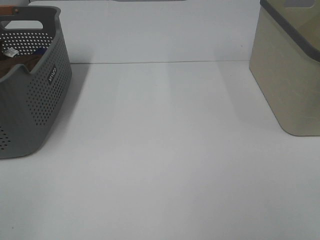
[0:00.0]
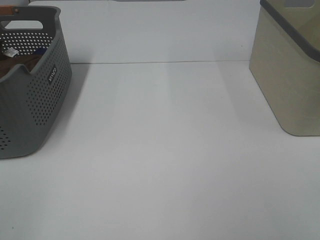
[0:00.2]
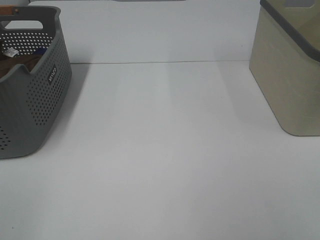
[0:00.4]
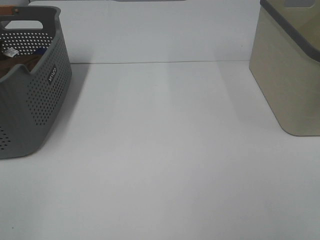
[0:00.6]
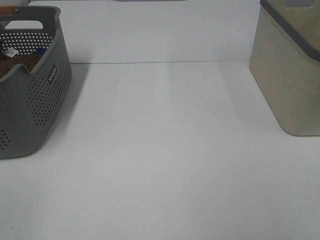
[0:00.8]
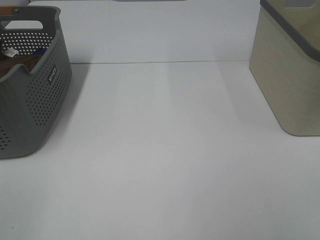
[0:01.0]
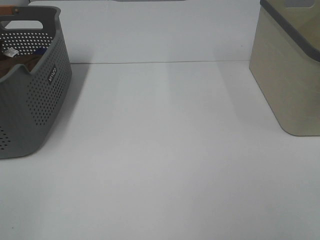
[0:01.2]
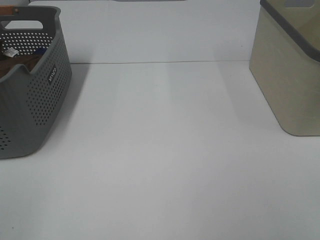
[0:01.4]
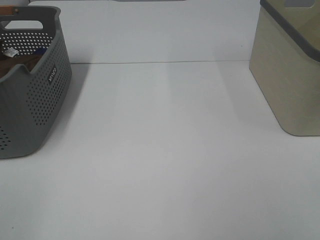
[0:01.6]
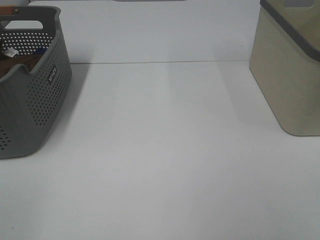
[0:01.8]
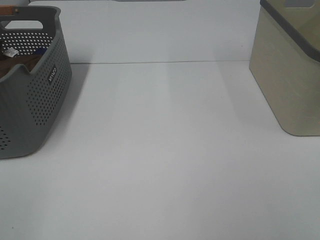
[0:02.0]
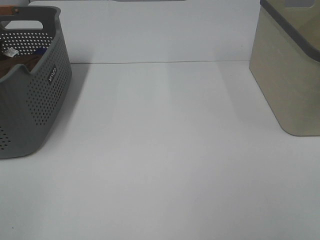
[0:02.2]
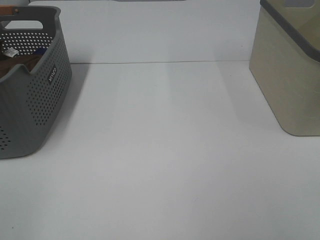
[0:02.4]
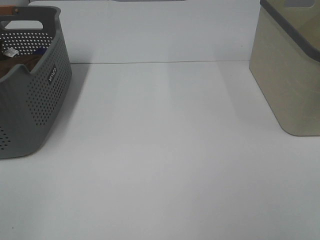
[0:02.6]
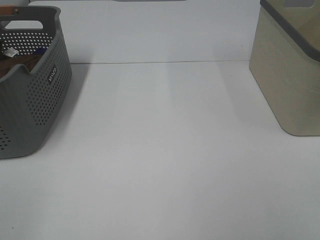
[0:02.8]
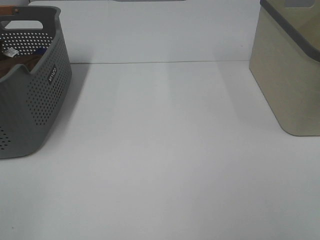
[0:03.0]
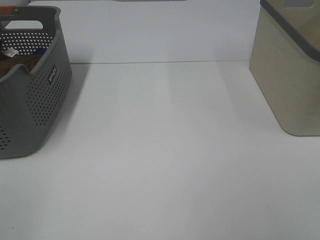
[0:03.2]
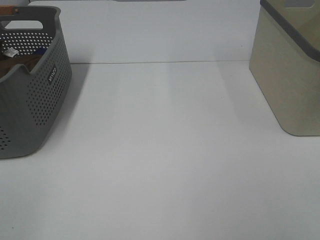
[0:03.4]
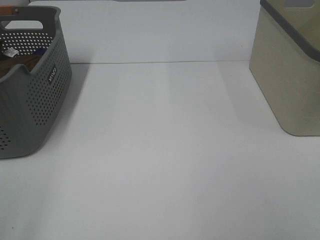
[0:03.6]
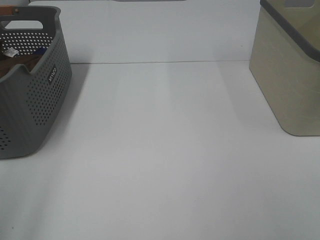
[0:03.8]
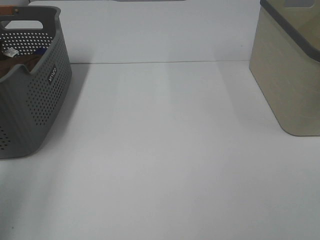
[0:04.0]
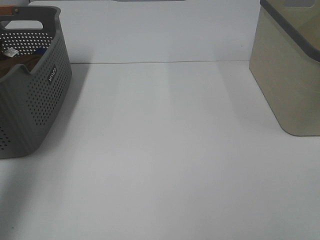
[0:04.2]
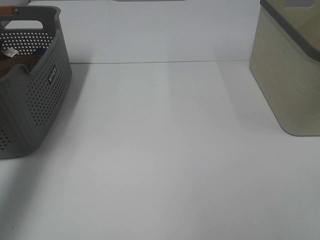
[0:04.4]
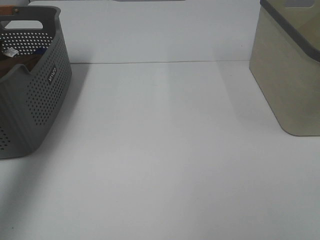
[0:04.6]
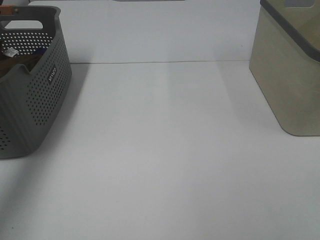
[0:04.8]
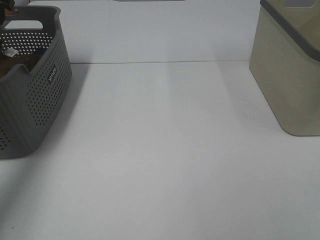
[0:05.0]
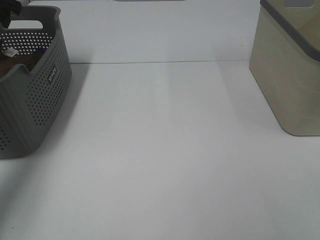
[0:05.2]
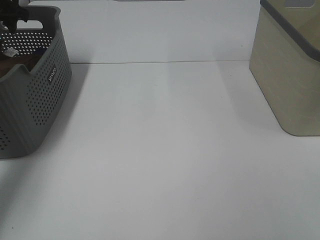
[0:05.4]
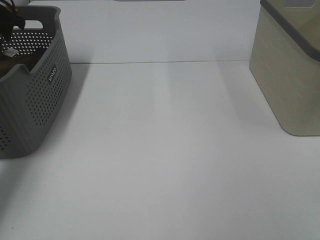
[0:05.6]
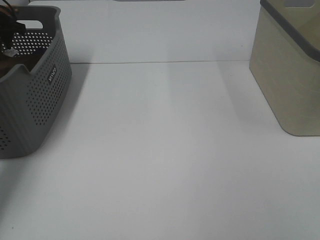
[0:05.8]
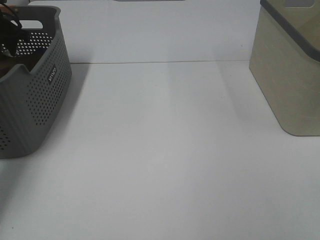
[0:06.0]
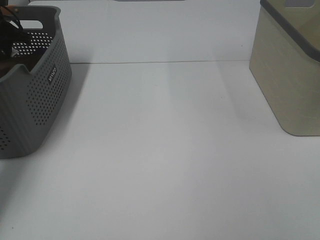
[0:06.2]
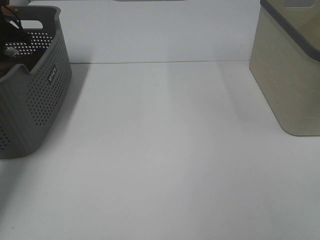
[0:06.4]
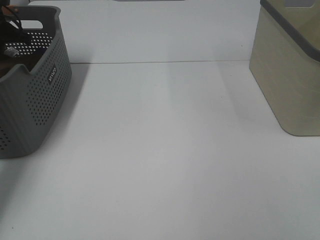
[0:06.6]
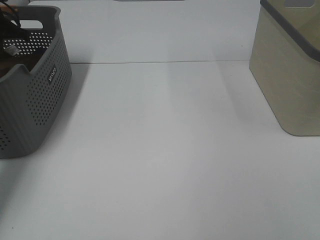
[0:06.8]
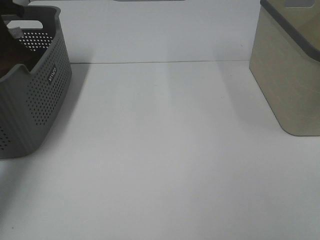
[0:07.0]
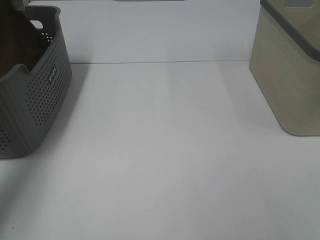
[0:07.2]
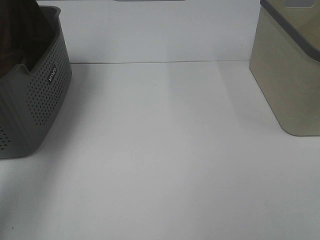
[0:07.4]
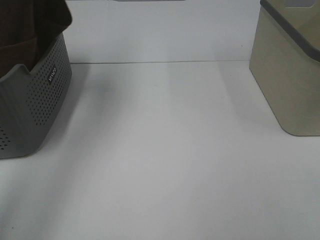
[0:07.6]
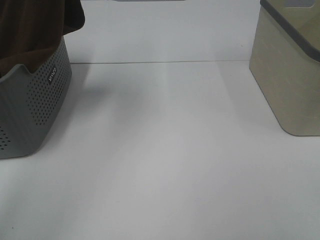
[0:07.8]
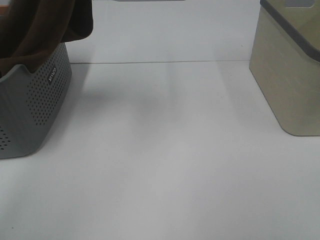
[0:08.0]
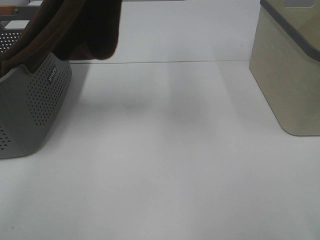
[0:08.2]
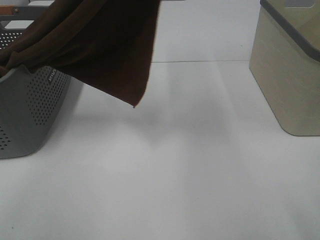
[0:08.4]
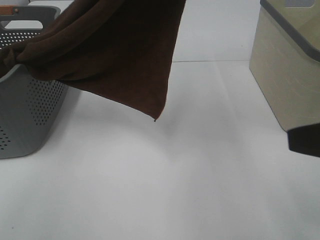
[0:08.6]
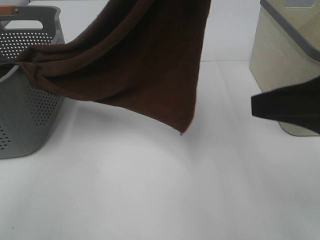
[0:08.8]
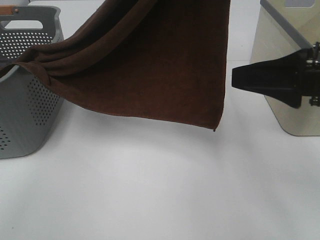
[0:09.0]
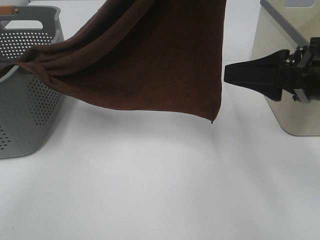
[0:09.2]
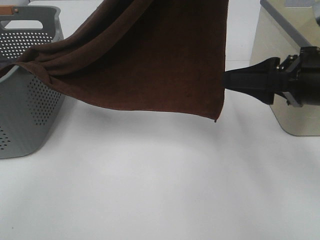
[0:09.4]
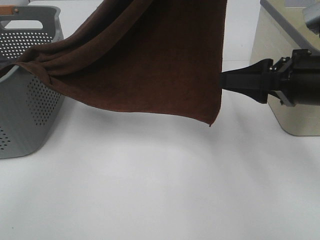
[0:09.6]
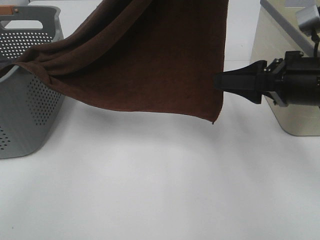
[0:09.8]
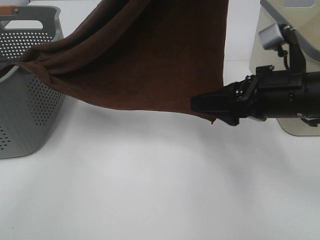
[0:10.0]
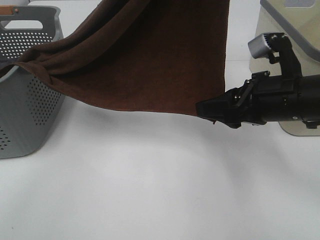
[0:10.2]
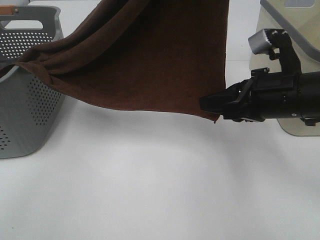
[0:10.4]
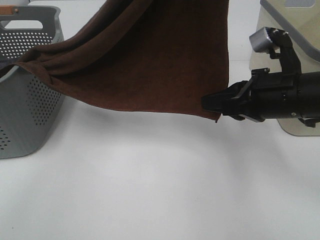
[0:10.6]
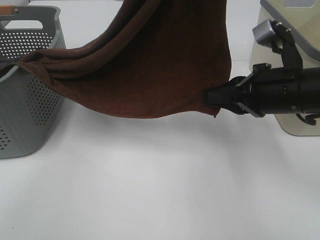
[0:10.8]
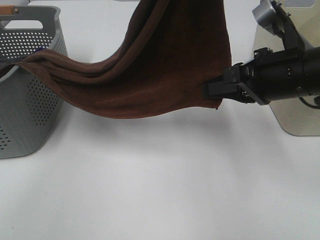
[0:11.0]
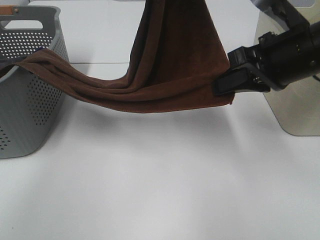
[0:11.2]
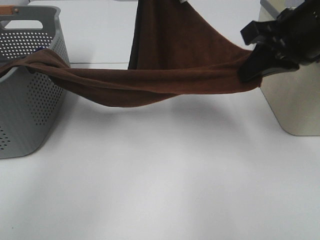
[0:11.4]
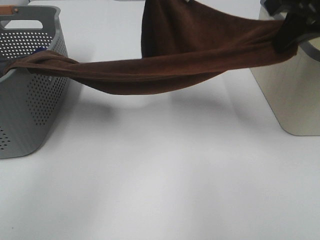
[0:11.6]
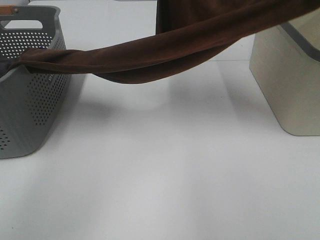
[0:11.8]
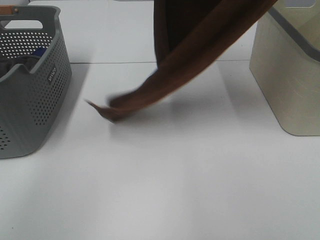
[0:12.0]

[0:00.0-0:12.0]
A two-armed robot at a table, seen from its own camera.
Task of the whole recording: Remove the towel and place it.
Step, 7.2 to 10.0 s: Right hand: grab a corner of the brown towel and straighten it.
0.0 to 3.0 s: Neither gripper changes place.
3.0 to 4.4 s: The left gripper goes roughly 30 cm forward.
4.4 to 6.0 s: The left gripper goes approximately 30 cm forward and downward.
6.0 to 7.6 s: The left gripper heads upward, to the right and backward, covering roughly 30 cm, and closes its fingers.
7.6 to 9.0 s: The right gripper travels forward by roughly 20 cm. Meanwhile the left gripper is displaced to the right and backward by about 25 cm.
9.0 to 10.4 s: The right gripper moves downward and forward, some 10 cm, and closes.
10.4 to 12.0 s: The right gripper shifts some 30 cm upward. Meanwhile the left gripper moves forward and to the left, approximately 10 cm, and travels downward and back again, some 10 cm each way.

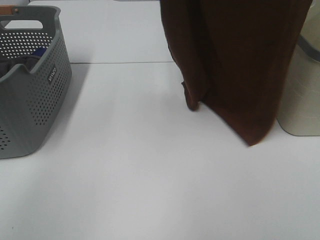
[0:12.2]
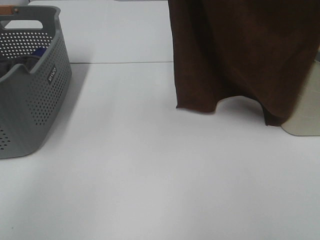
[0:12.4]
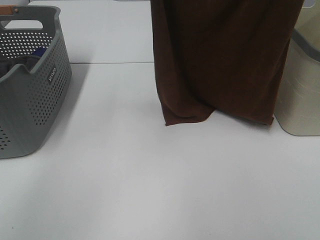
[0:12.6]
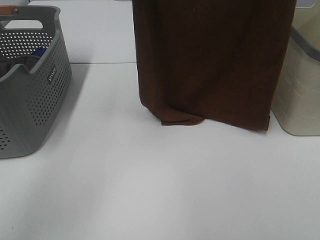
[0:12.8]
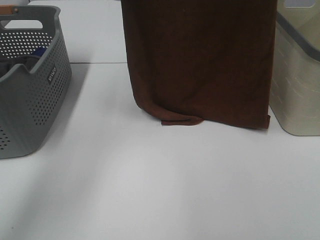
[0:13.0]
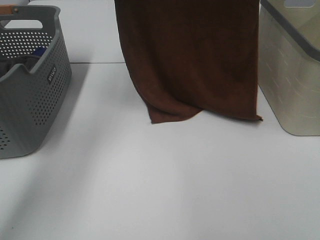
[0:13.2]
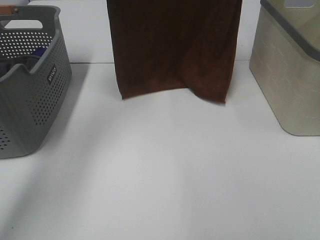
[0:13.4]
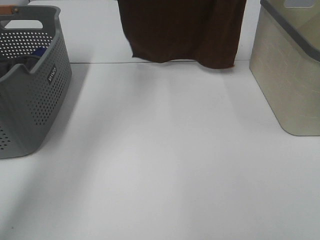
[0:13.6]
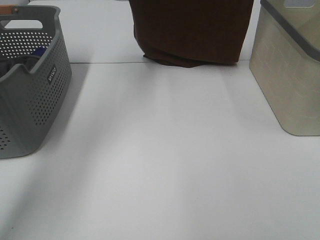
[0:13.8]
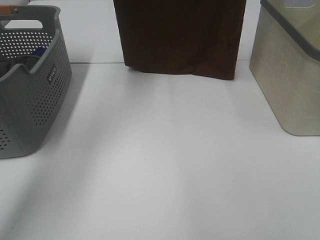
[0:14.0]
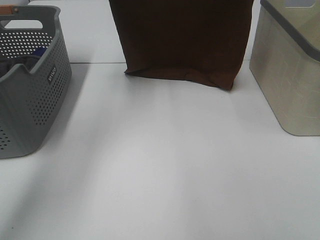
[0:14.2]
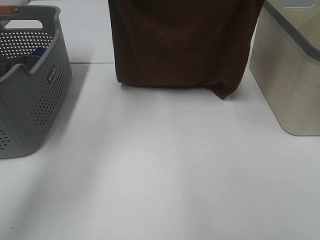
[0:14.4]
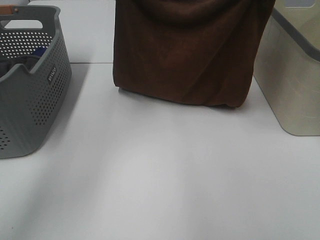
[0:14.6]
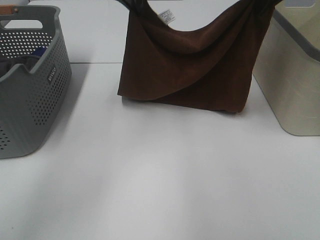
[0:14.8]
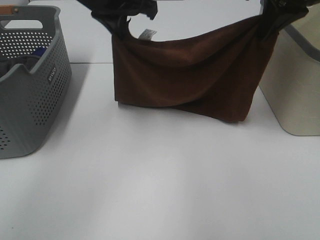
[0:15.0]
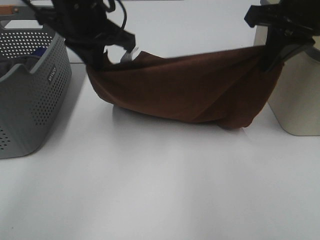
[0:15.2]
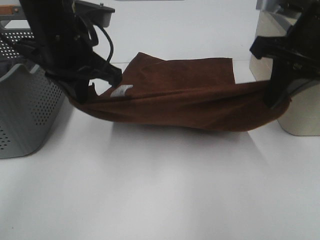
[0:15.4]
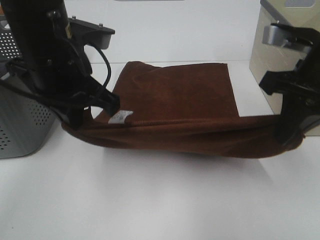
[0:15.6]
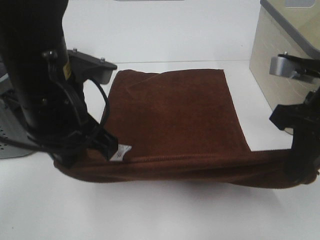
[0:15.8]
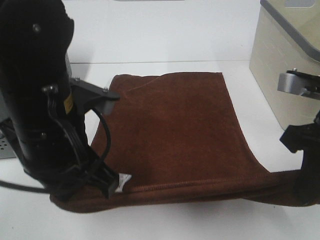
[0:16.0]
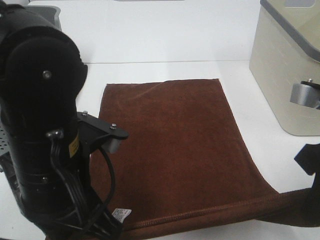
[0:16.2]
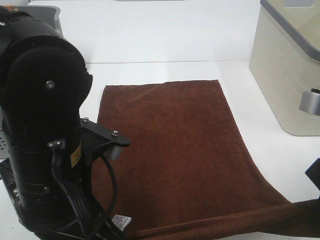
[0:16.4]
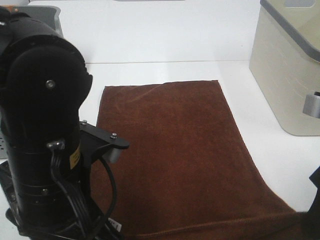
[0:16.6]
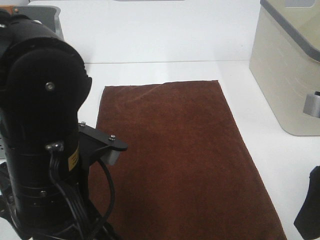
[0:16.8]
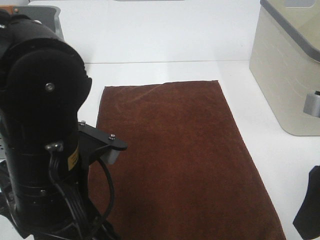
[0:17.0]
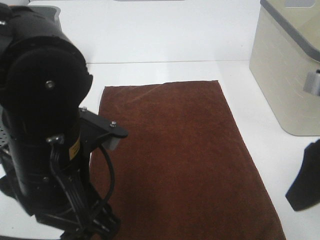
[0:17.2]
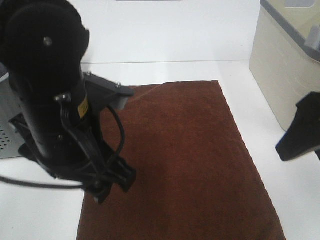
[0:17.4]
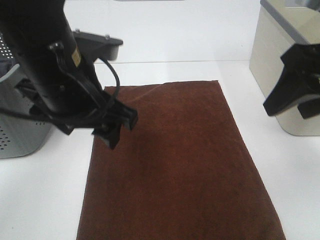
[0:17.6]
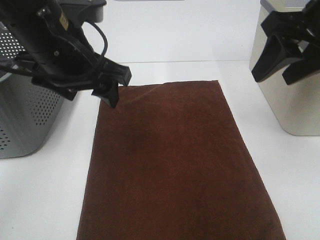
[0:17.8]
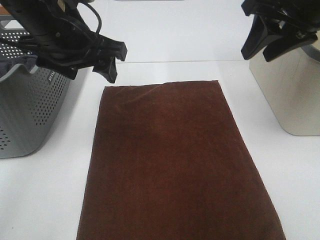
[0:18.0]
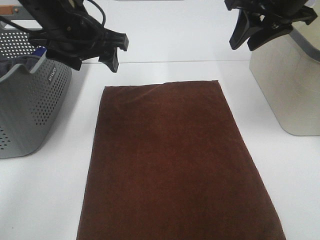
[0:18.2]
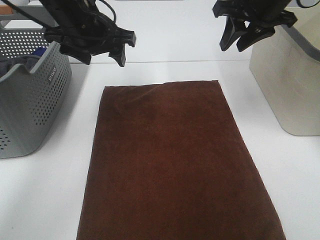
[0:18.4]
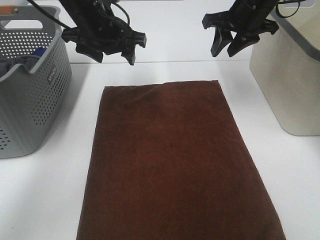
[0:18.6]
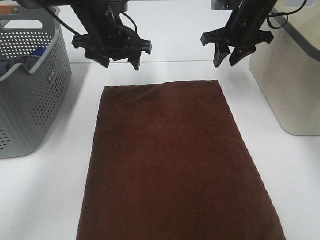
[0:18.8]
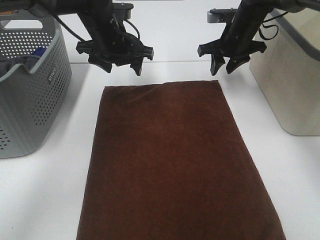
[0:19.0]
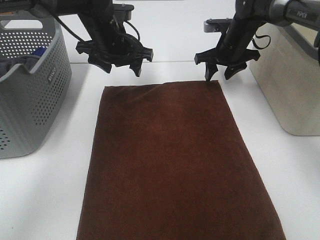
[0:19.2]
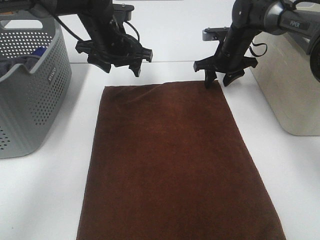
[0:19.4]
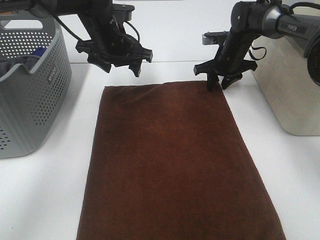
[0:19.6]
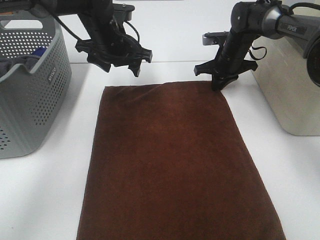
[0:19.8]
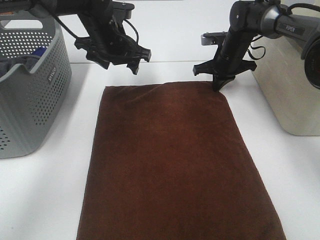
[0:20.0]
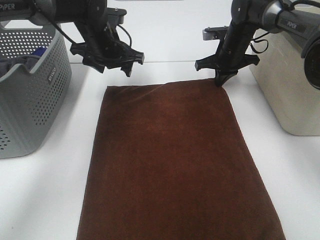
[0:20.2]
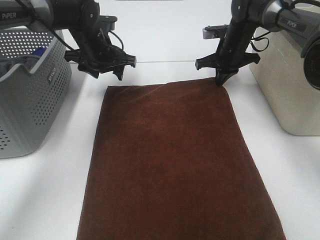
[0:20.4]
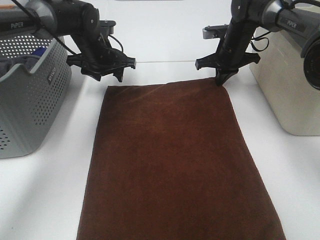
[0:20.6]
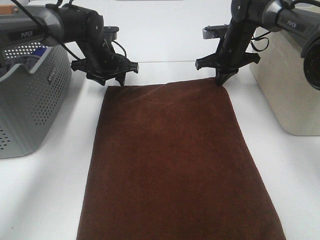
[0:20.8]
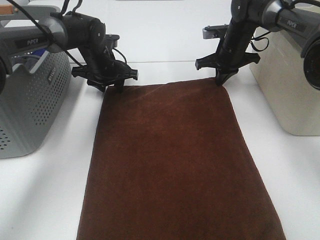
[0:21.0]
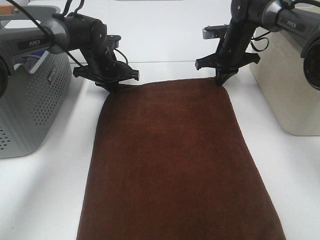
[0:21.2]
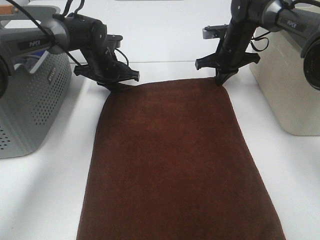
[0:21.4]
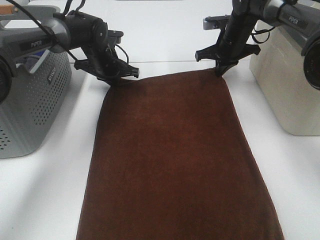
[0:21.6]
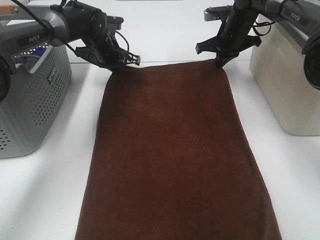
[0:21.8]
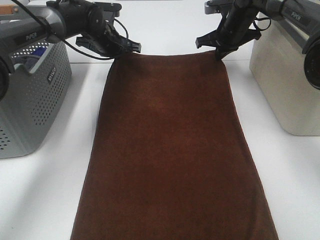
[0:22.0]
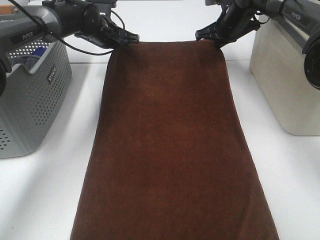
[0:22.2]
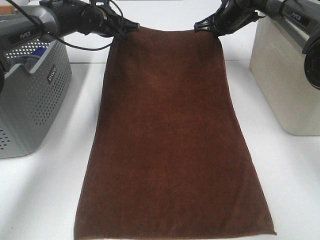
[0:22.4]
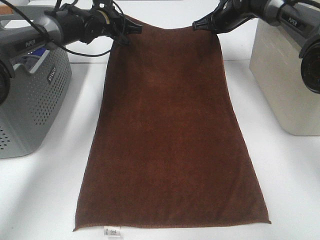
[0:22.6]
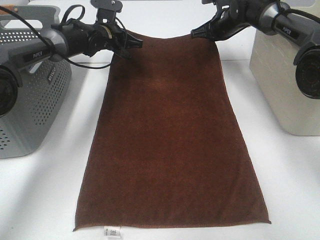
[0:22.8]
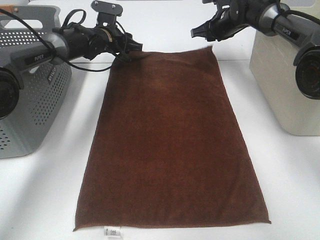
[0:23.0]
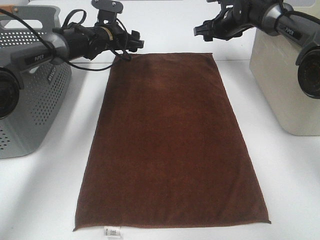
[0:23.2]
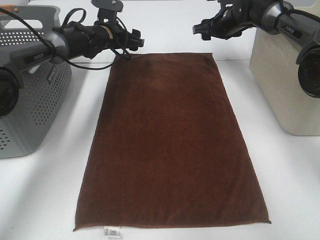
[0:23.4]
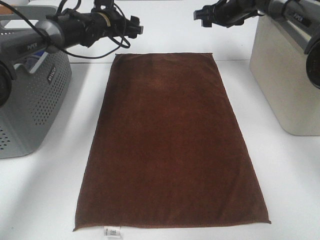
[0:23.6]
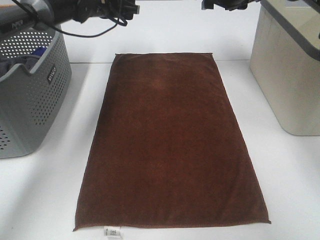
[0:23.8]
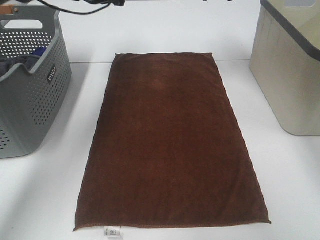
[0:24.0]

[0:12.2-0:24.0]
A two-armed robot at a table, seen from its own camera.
Task of the whole recording: Remove the towel and place it.
Step, 13.6 to 18.6 s: Left hand:adjust the brown towel.
Step, 13.6 to 18.6 s: Right hand:adjust the brown towel.
12.2 to 13.6 s: The left gripper heads forward, to the left and downward, covering approximately 15 cm, while the right gripper goes approximately 15 cm forward.
13.6 to 15.2 s: Both grippers travel together downward and backward, some 25 cm.
15.2 to 16.6 s: The left gripper moves backward and downward, about 20 cm, and opens up; the right gripper shifts about 20 cm backward, and opens.
16.6 to 18.2 s: The two grippers go approximately 20 cm forward. The left gripper opens up, while the right gripper opens and closes again.
18.2 to 19.6 s: The left gripper shifts some 10 cm forward and downward; the right gripper goes roughly 25 cm downward and forward.
19.6 to 21.0 s: The left gripper shifts some 10 cm downward and forward; the right gripper closes.
21.0 to 22.6 s: The left gripper goes about 10 cm forward and upward, and closes up; the right gripper heads forward, covering approximately 5 cm.
22.6 to 24.0 s: The grippers both shift upward by roughly 10 cm. The left gripper opens up, while the right gripper opens its fingers.
